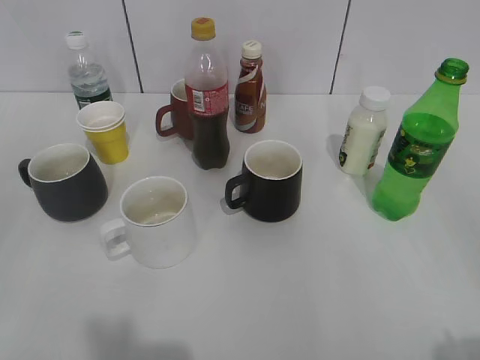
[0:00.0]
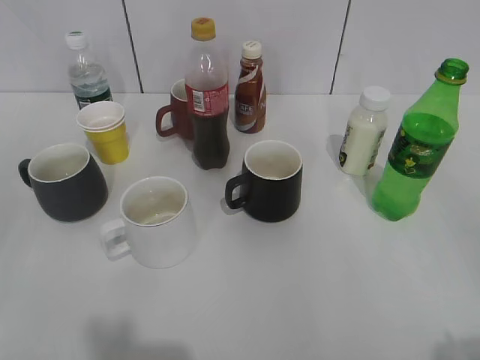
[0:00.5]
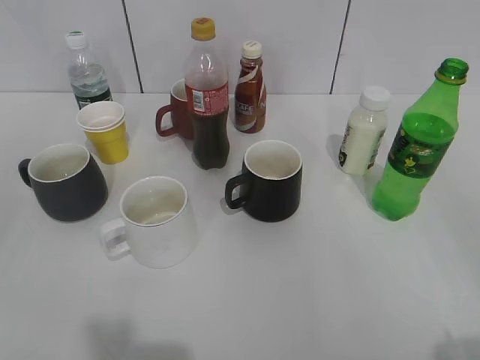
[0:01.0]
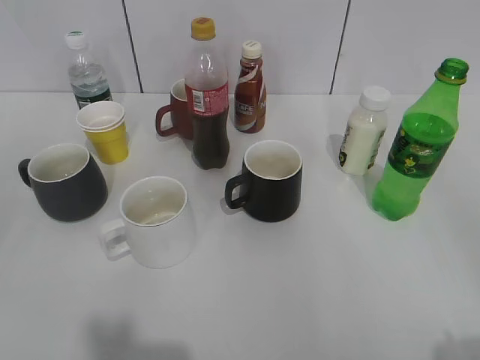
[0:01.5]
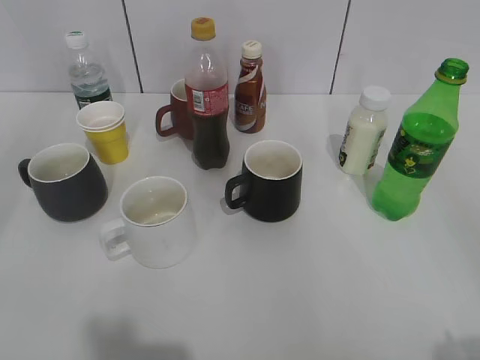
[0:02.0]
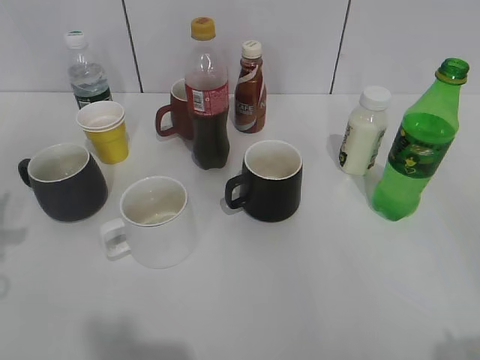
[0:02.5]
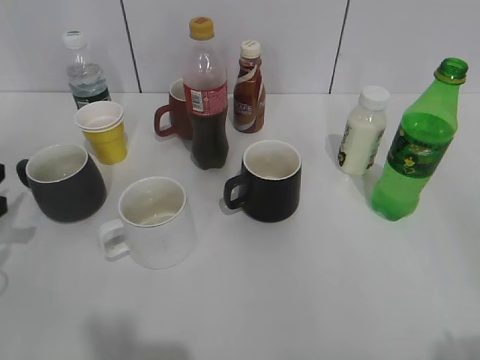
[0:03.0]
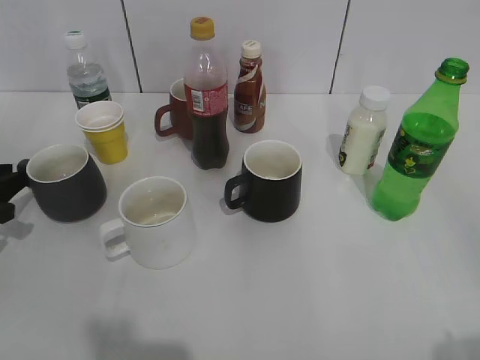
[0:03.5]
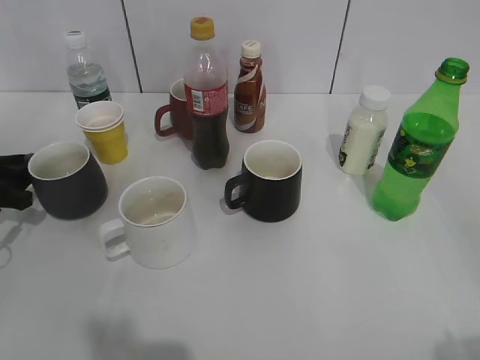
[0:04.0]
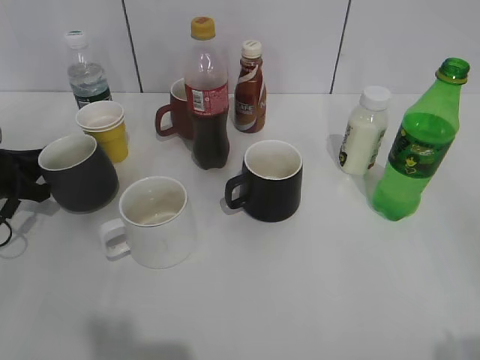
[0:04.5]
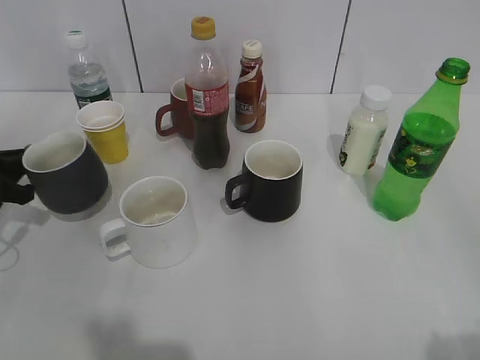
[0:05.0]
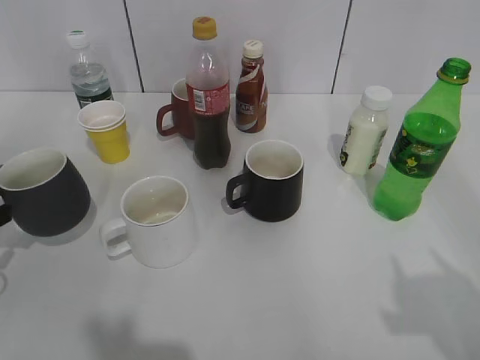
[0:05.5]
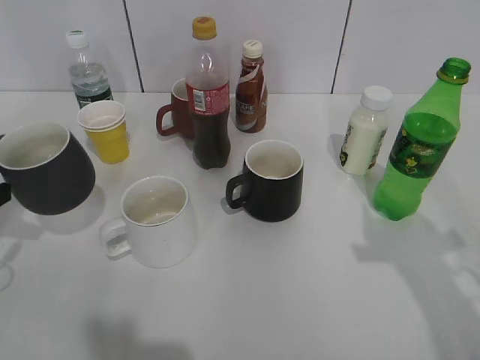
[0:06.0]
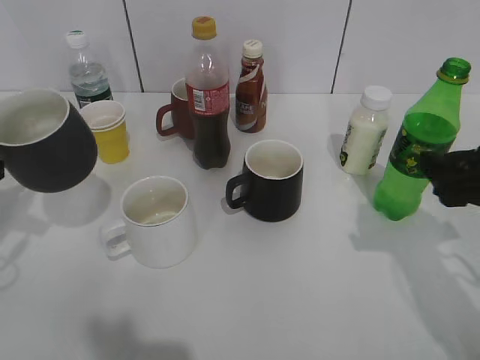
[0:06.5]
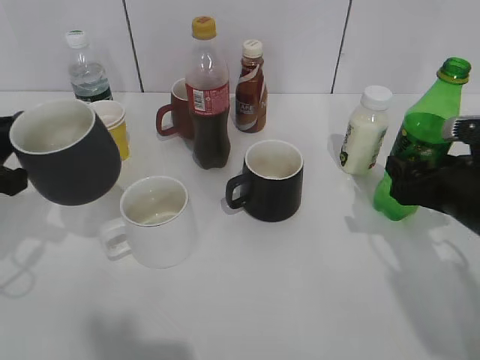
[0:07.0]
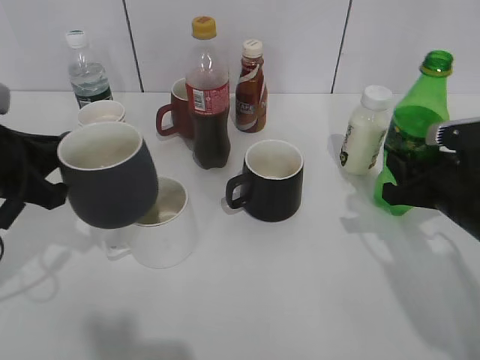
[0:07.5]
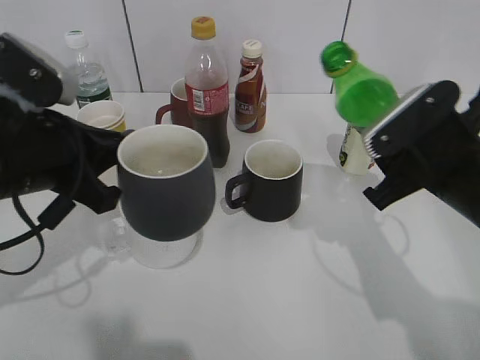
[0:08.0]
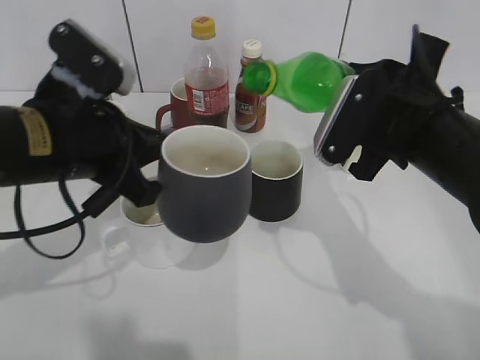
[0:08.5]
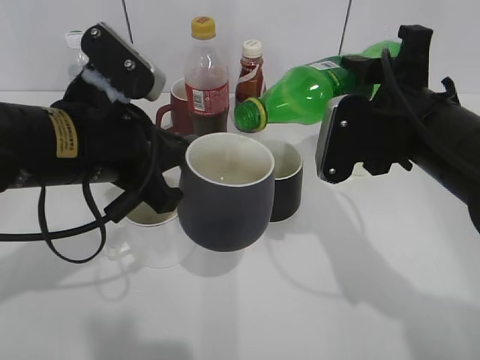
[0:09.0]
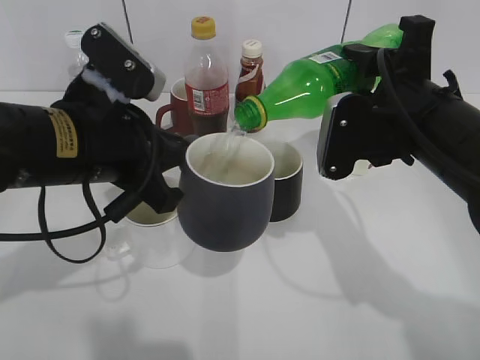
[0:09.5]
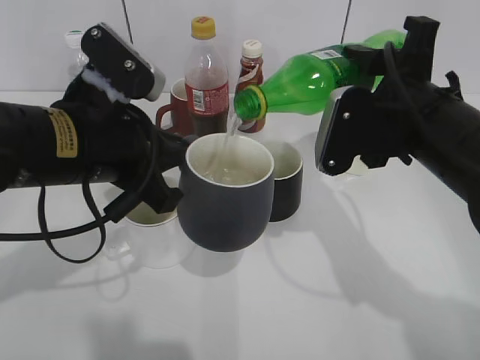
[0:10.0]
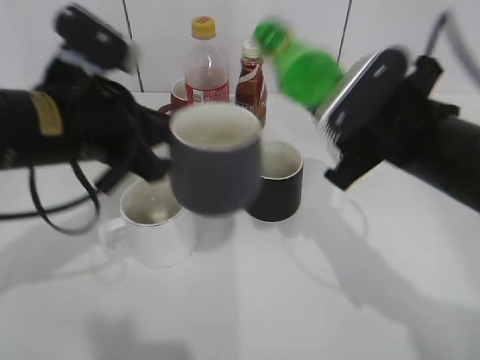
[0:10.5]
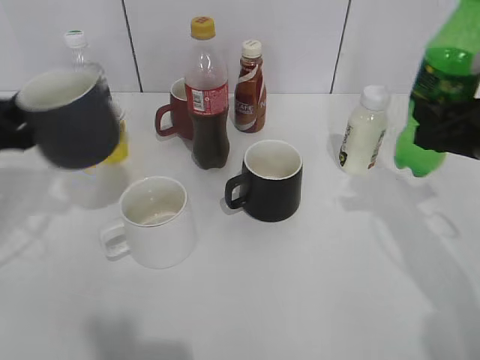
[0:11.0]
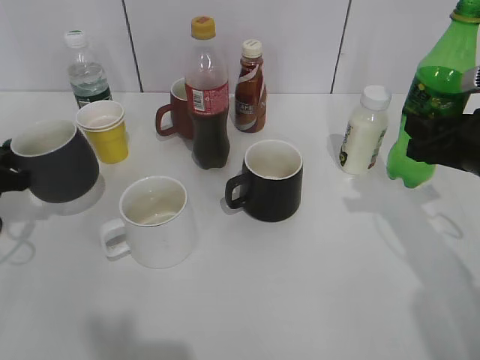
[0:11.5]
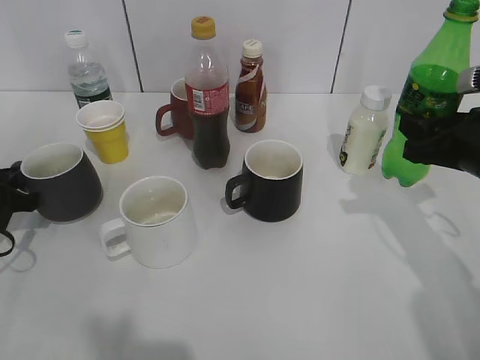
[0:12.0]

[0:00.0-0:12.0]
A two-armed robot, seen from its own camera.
Step, 0:03.0 to 0:04.0: Grasp the grey cup with left gripper.
Step, 0:04.5 to 0:06.0: Lift the grey cup with left gripper.
Step, 0:06.5 to 0:07.0: Grasp the bottle with sprite with right gripper.
Step, 0:07.5 to 0:10.0: Pour the sprite from bottle to cup with right gripper.
0:02.0 to 0:04.0: The left gripper shifts roughly 35 cm forward and downward.
0:04.0 to 0:06.0: The right gripper heads forward, covering approximately 15 cm. The left gripper goes approximately 10 cm upward and backward, and closes.
0:06.0 to 0:08.0: The left gripper heads to the right and upward, covering some 15 cm; the right gripper travels downward, forward and to the left by approximately 15 cm, and opens, then closes again.
0:08.0 to 0:10.0: The right gripper shifts by some 5 cm, while the left gripper is displaced to the right by about 5 cm.
0:10.0 to 0:12.0: The left gripper goes approximately 25 cm to the left and downward. The right gripper moves to the right, approximately 10 cm.

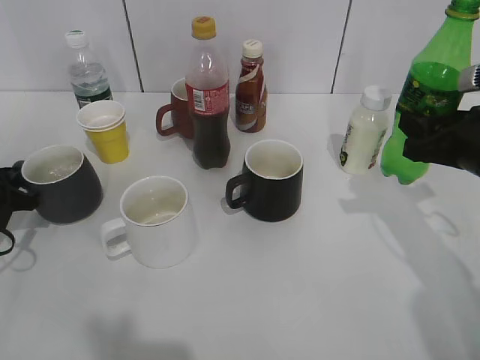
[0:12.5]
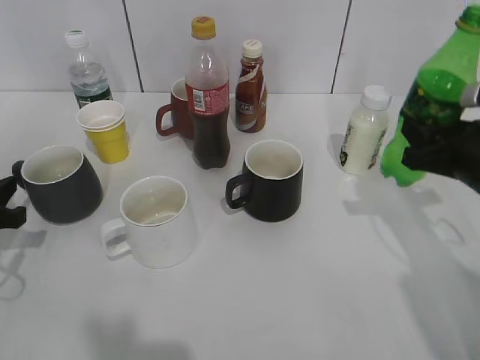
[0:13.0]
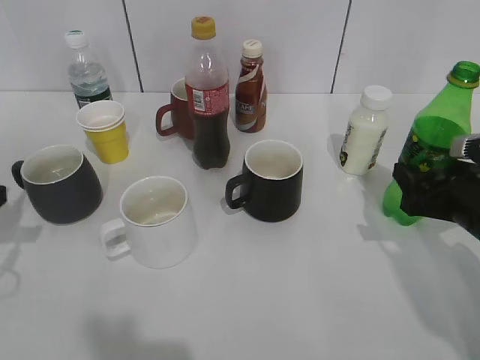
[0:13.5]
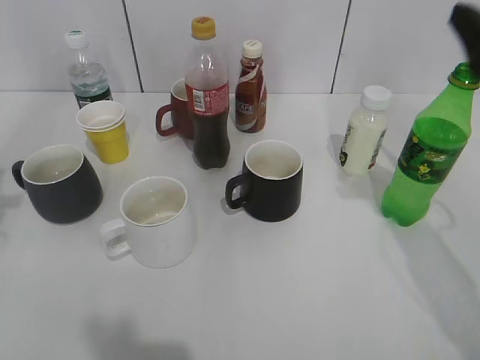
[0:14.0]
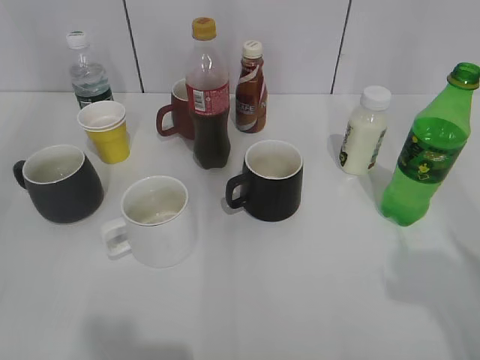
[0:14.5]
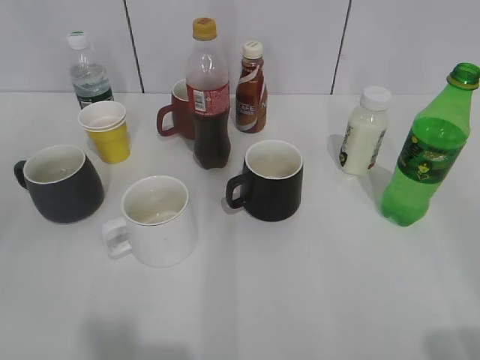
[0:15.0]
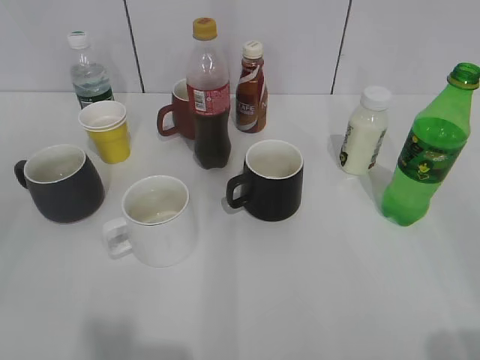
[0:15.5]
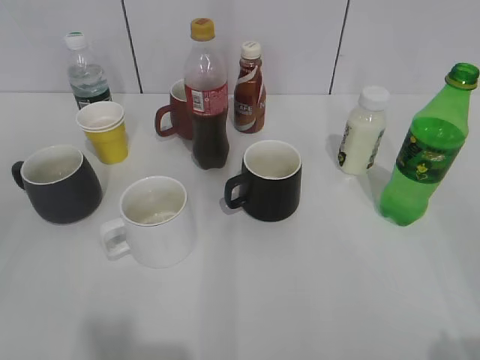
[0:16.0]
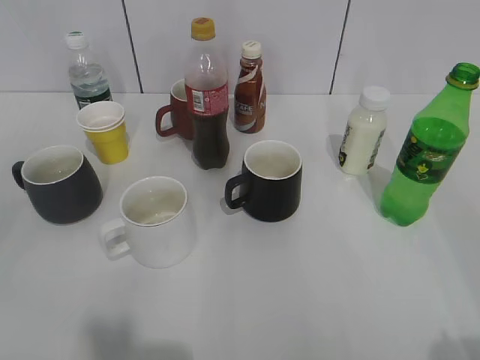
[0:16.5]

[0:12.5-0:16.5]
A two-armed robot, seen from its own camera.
Step, 0:13.0 to 0:13.5: Place the sprite bottle on the table with right gripper.
0:12.5 to 0:14.5: The two grippers go some 30 cm upward and backward. The left gripper opens up, while the right gripper opens its fingers.
0:14.5 to 0:16.5: Both grippers travel together backward and downward, approximately 15 cm.
